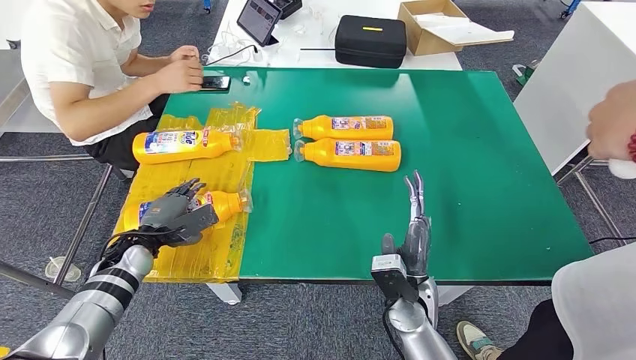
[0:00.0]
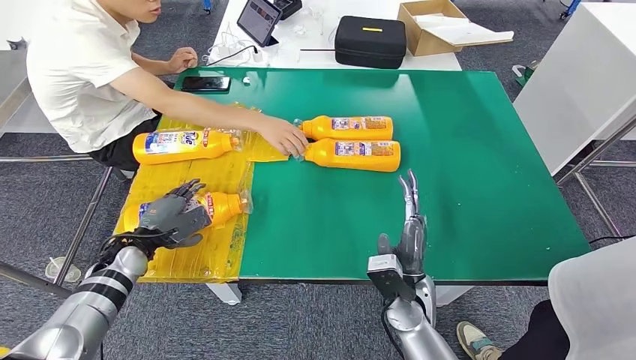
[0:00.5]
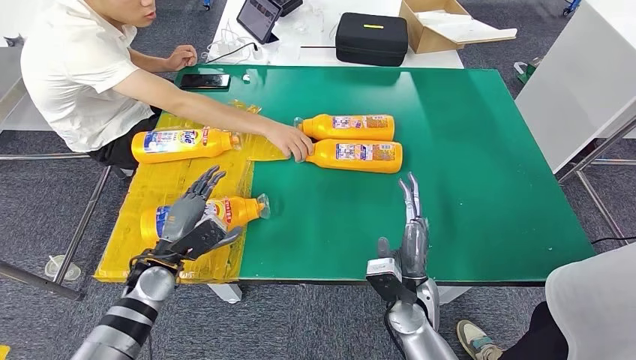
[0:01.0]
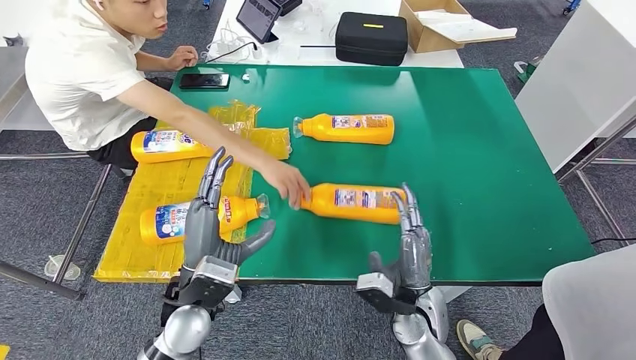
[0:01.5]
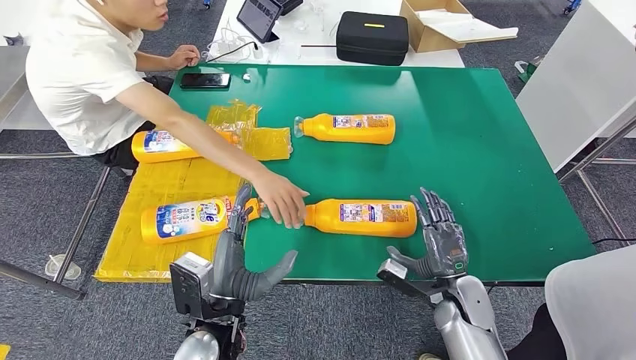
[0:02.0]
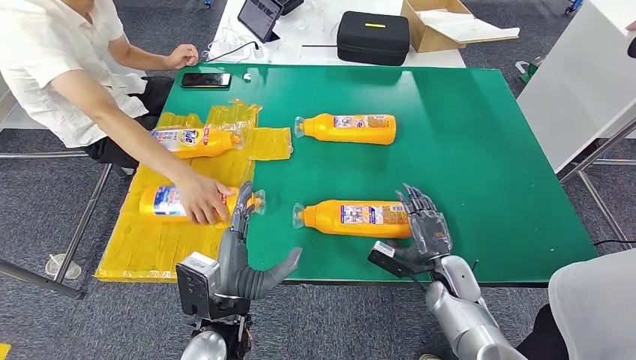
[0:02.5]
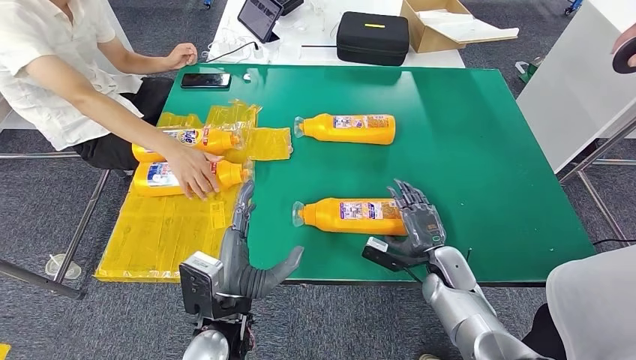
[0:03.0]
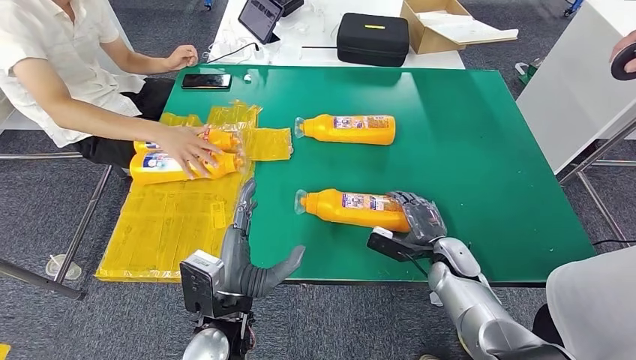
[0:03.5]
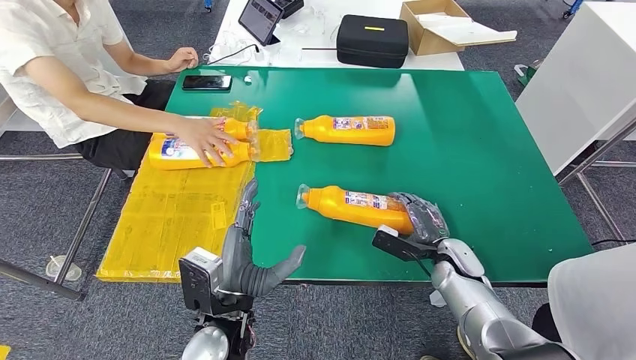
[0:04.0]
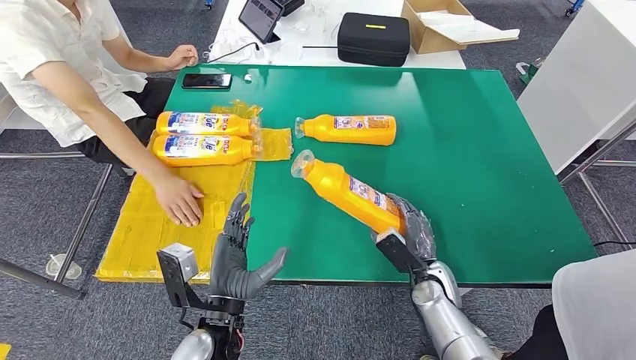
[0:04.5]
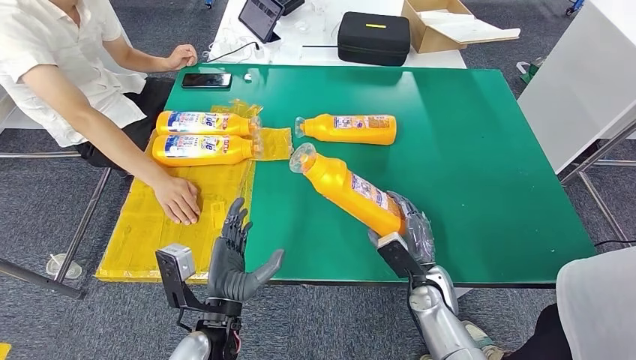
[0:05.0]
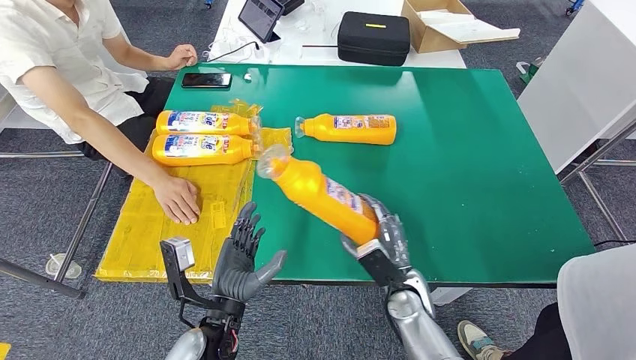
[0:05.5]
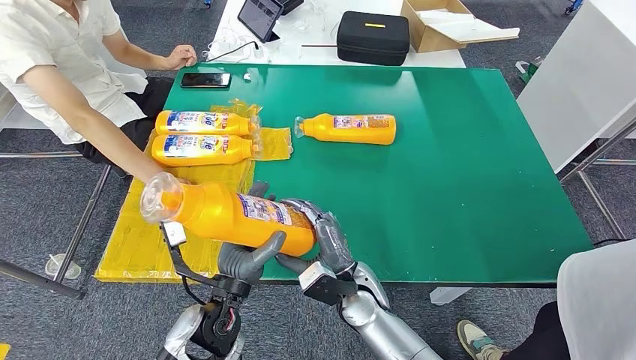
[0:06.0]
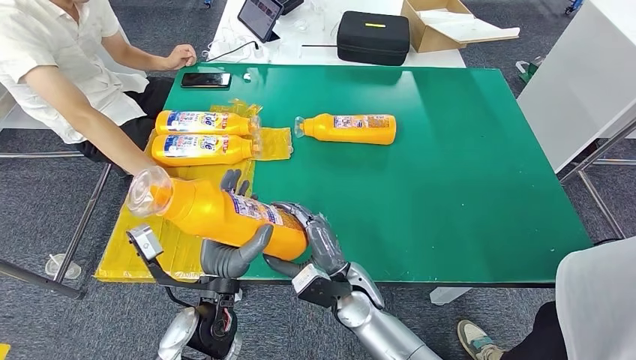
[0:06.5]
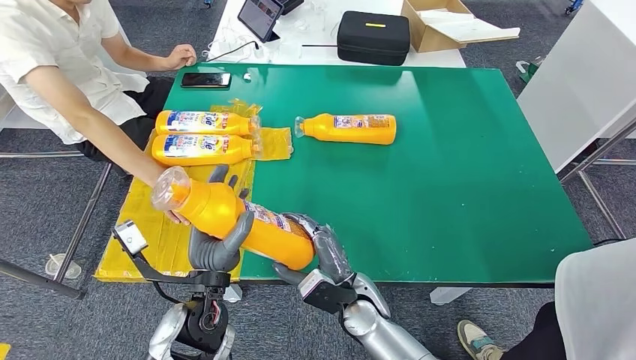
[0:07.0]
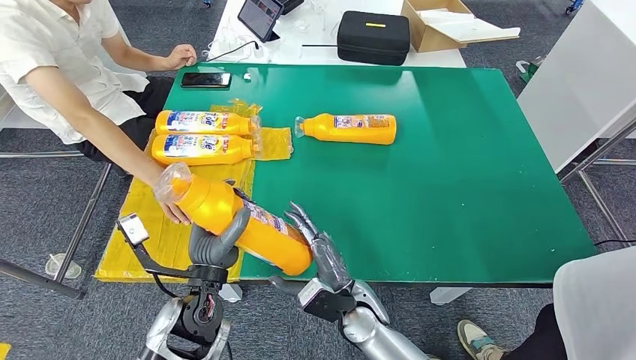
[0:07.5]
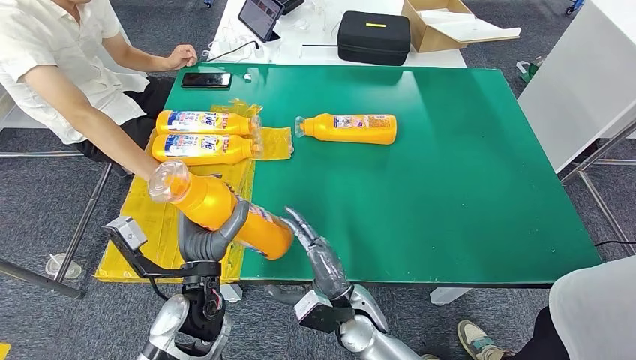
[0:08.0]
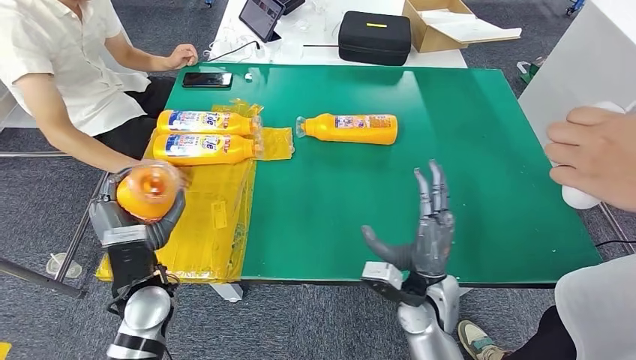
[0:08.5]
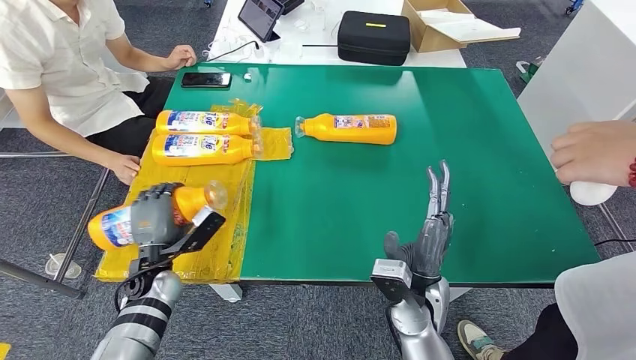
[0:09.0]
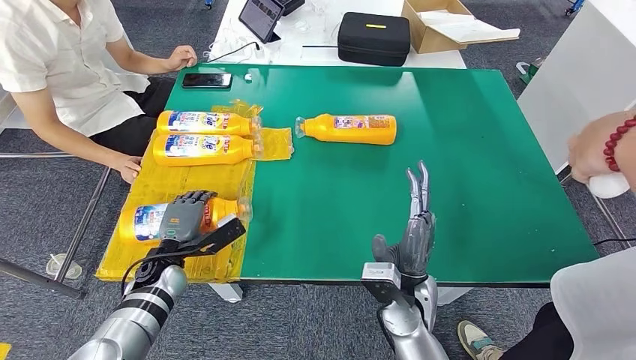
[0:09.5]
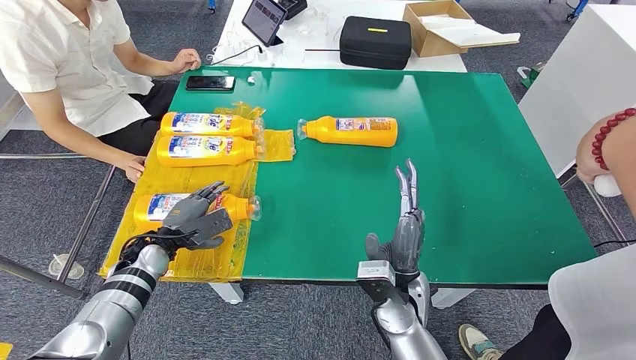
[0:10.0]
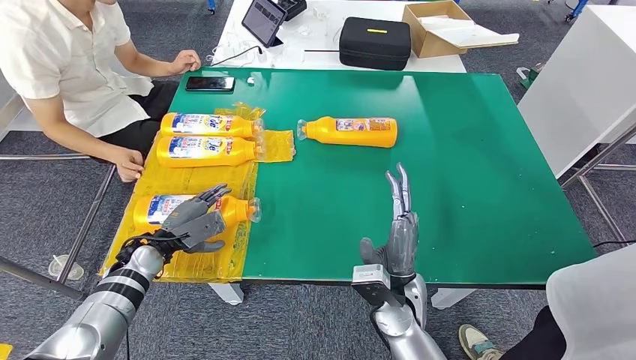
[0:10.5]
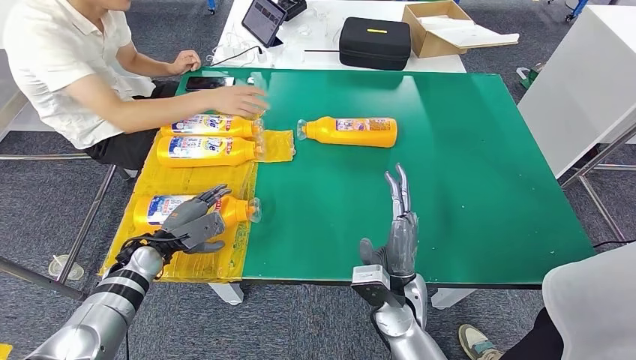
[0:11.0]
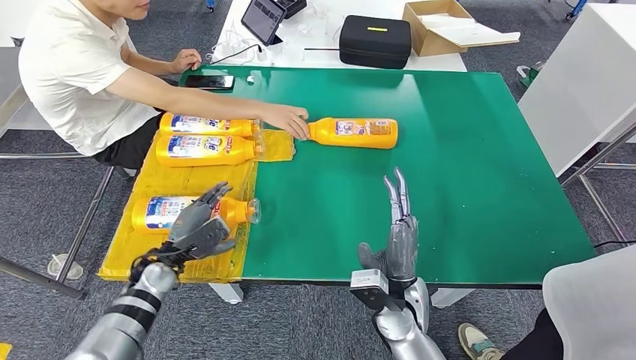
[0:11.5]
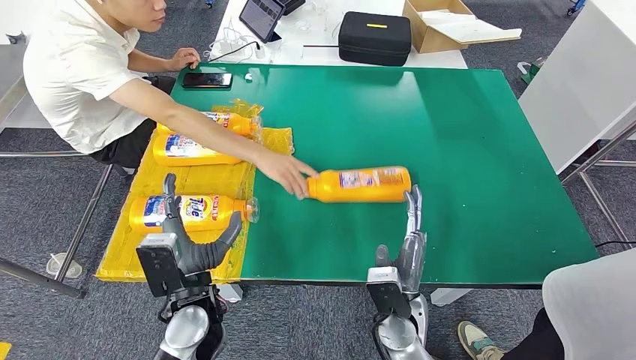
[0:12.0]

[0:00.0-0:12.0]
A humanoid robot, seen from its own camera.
Step, 0:00.0 to 0:04.0: Pick up the fast-moving consumer goods bottle from the table.
Step, 0:04.5 to 0:10.5: Flip the fast-moving consumer goods bottle to the front side.

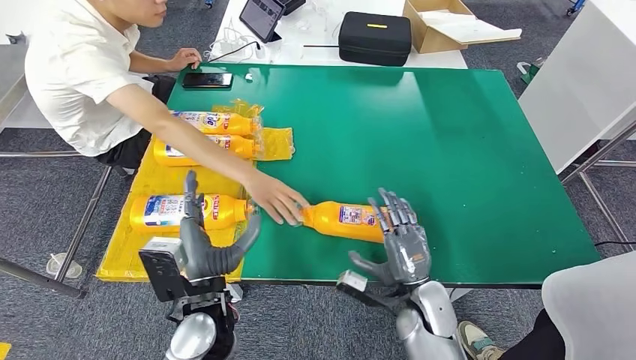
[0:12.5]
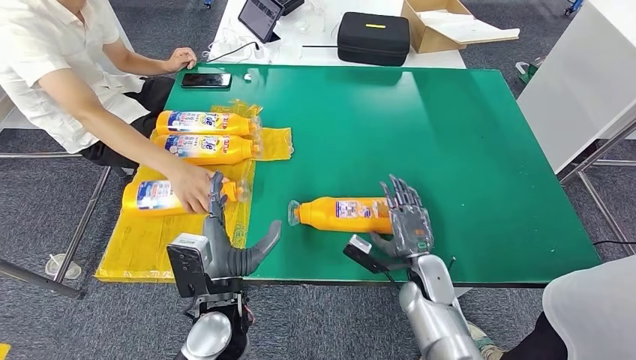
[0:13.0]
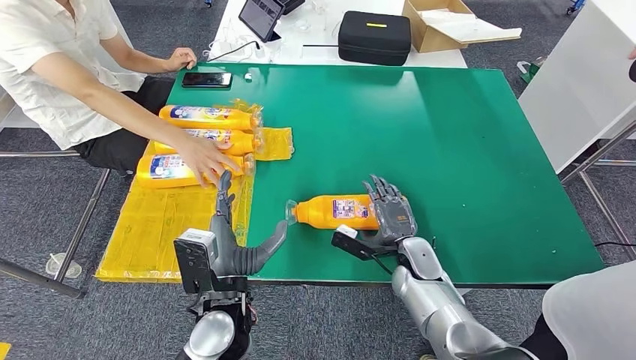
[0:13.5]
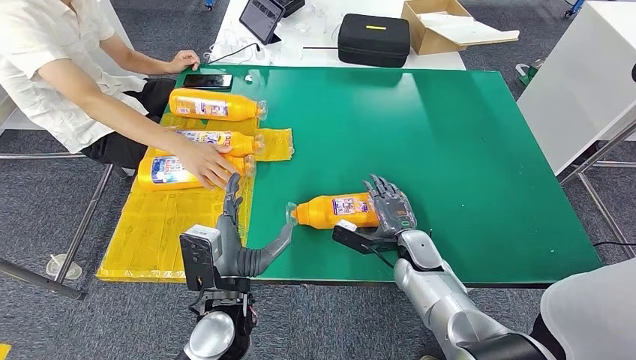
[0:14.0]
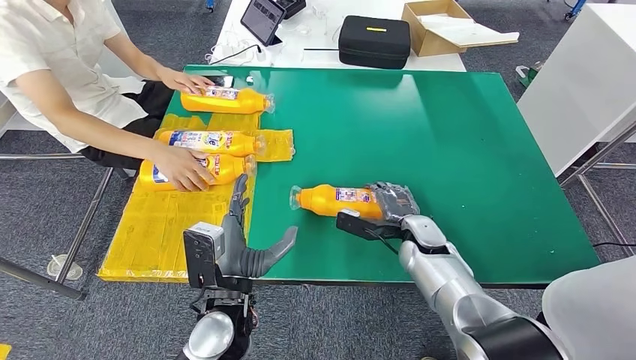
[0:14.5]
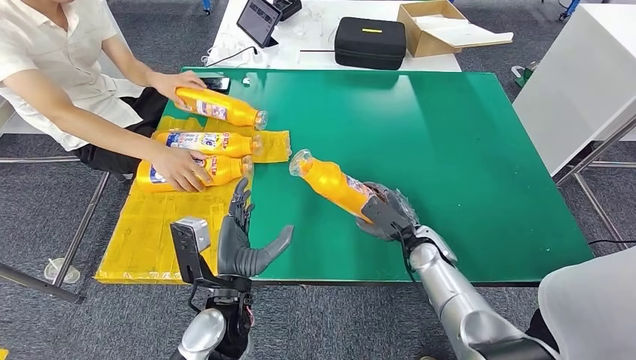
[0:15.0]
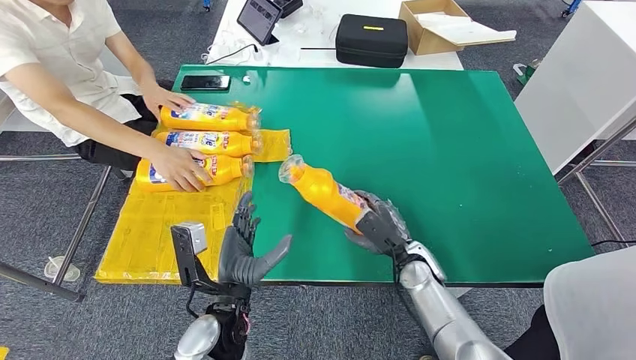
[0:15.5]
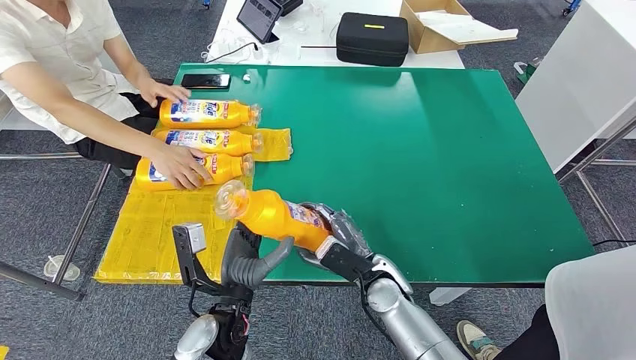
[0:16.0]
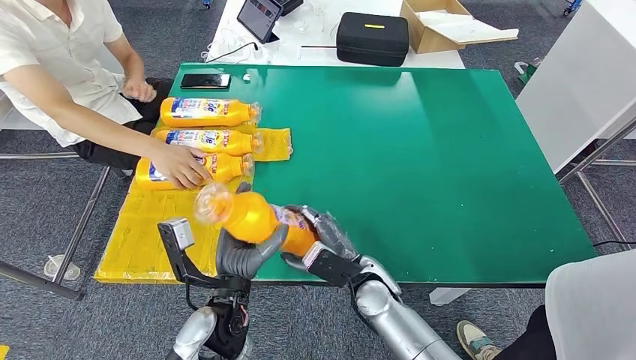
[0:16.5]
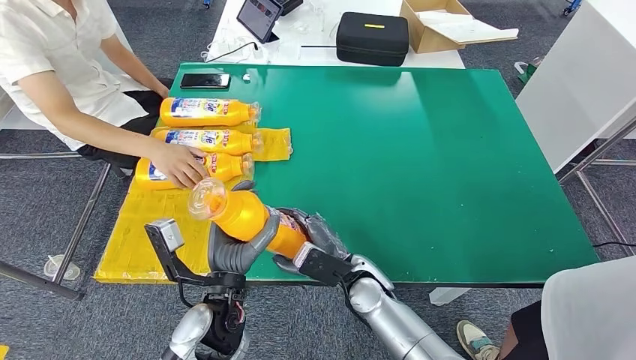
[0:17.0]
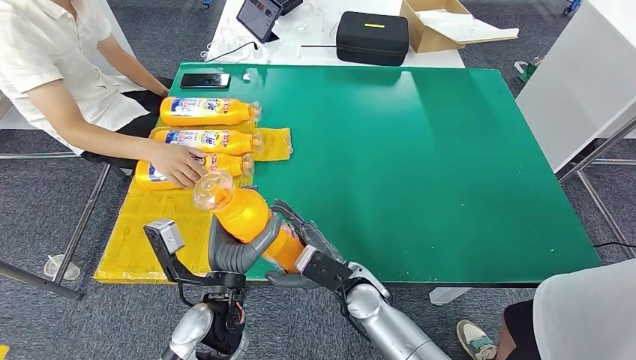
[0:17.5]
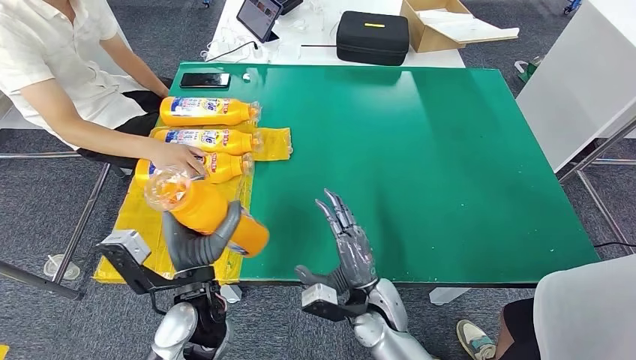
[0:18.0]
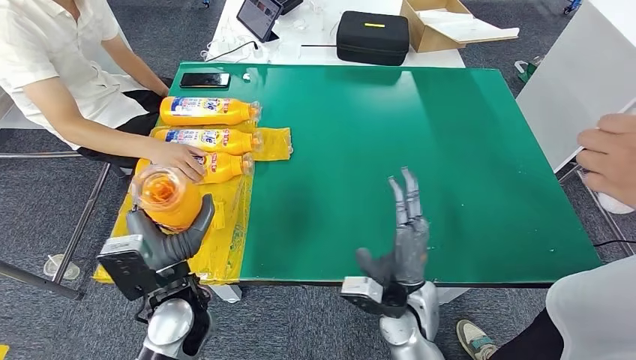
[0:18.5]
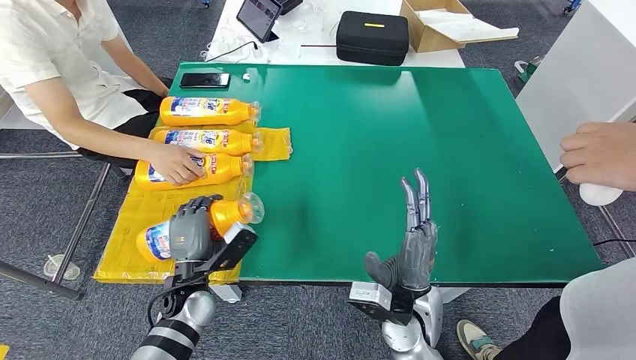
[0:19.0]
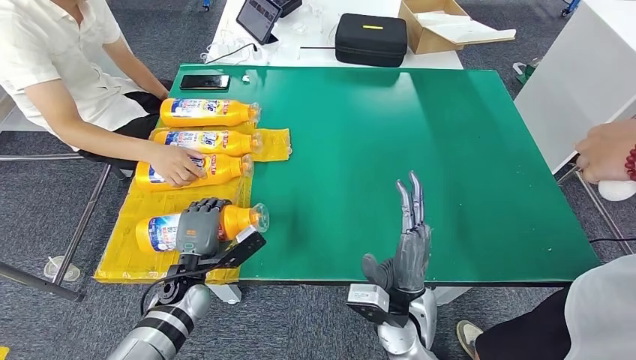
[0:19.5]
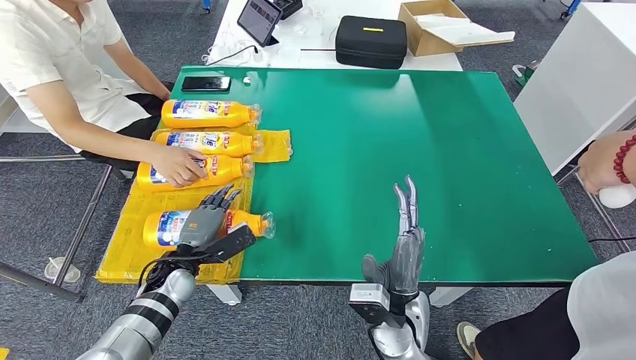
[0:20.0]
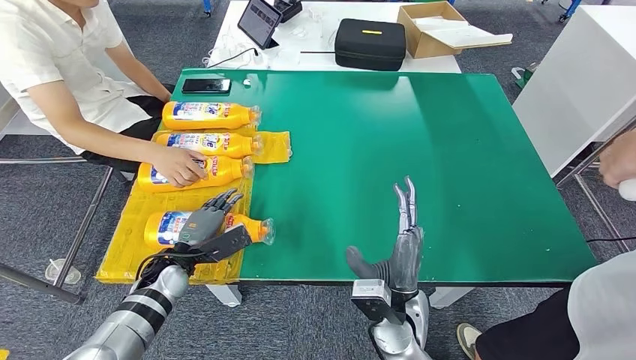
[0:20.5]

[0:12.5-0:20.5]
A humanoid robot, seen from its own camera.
Step, 0:12.5 to 0:15.0: Pick up the fast-moving consumer goods bottle from the table.
Step, 0:15.5 to 0:20.5: Flip the fast-moving consumer goods bottle to the front side.
